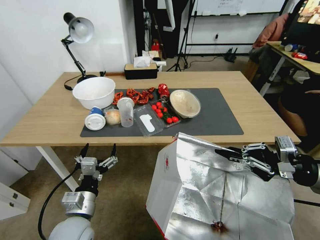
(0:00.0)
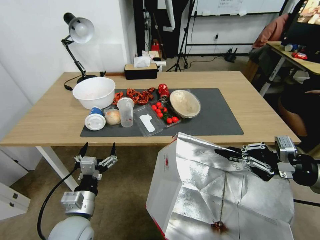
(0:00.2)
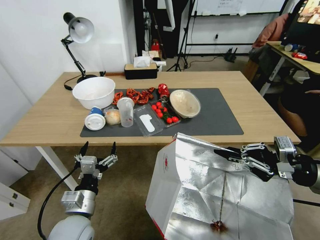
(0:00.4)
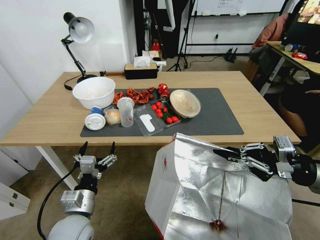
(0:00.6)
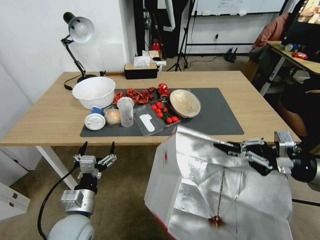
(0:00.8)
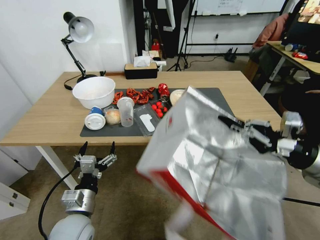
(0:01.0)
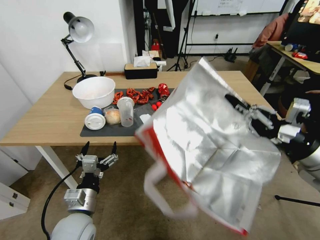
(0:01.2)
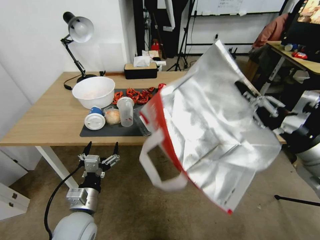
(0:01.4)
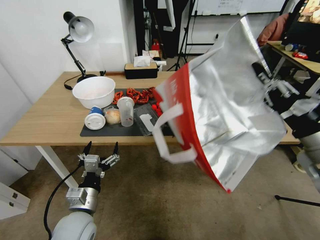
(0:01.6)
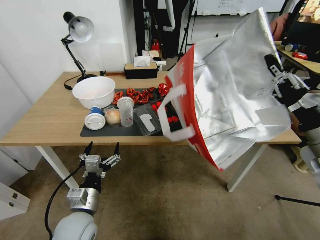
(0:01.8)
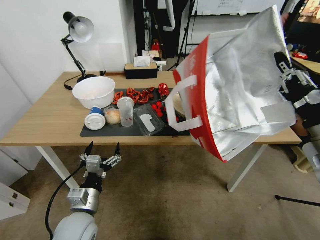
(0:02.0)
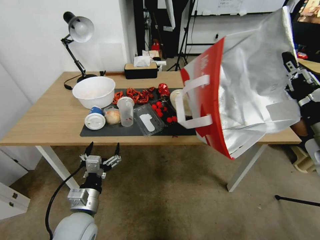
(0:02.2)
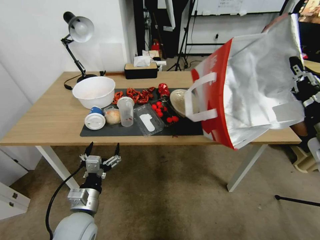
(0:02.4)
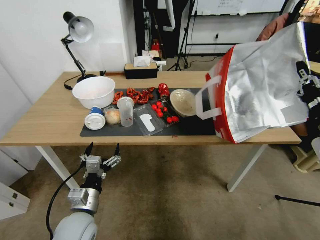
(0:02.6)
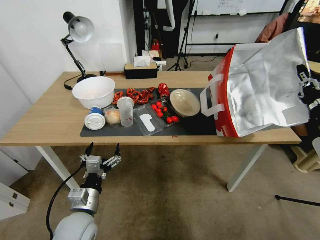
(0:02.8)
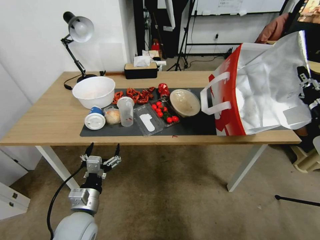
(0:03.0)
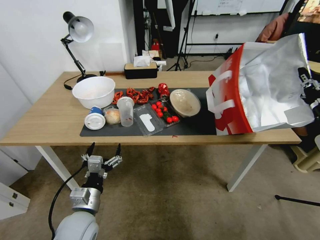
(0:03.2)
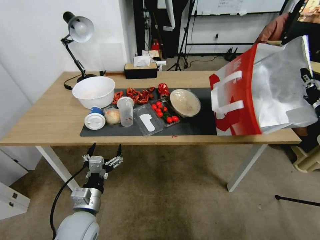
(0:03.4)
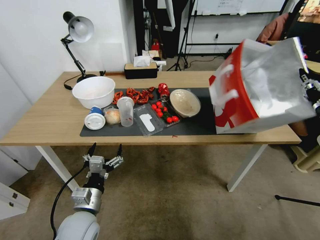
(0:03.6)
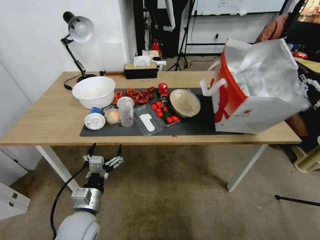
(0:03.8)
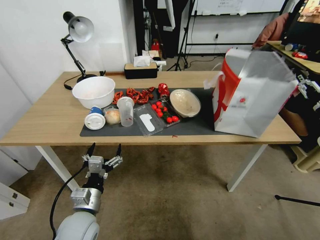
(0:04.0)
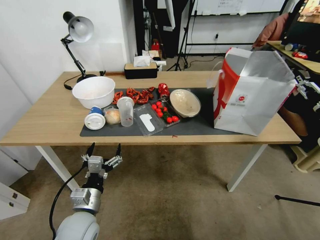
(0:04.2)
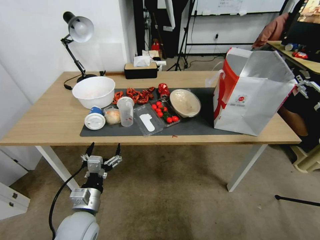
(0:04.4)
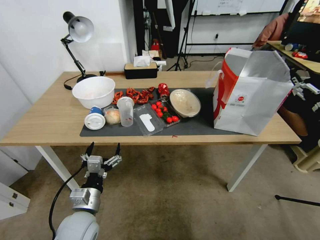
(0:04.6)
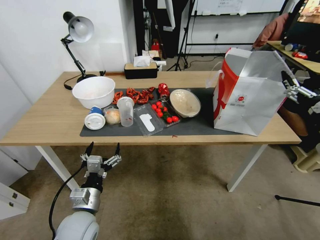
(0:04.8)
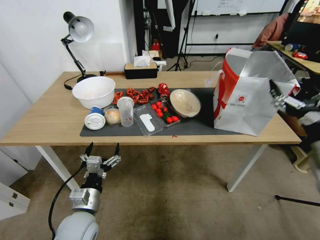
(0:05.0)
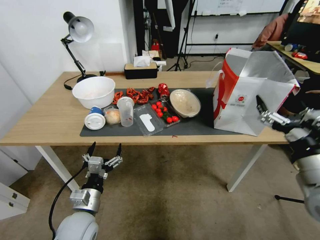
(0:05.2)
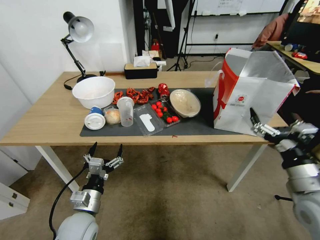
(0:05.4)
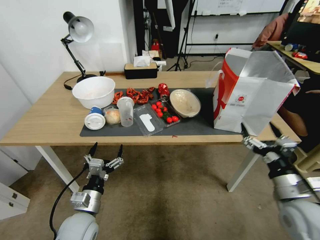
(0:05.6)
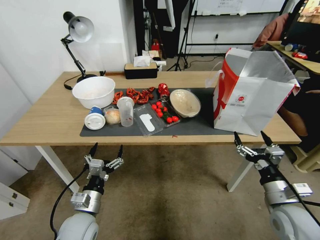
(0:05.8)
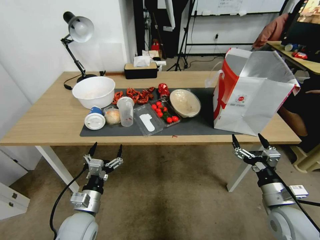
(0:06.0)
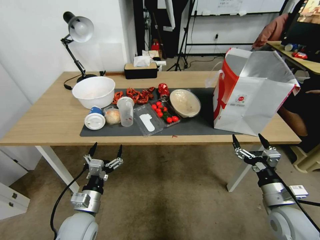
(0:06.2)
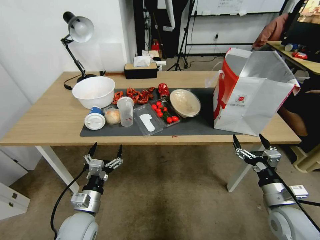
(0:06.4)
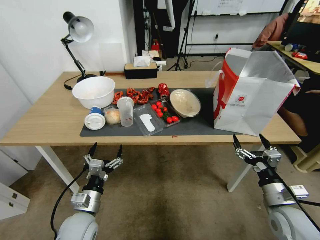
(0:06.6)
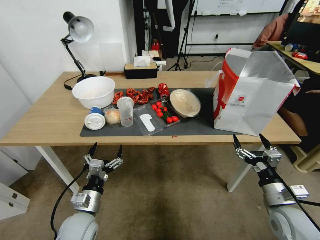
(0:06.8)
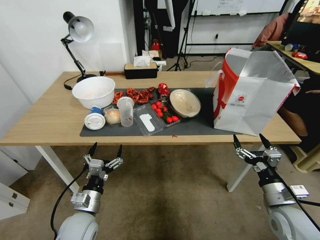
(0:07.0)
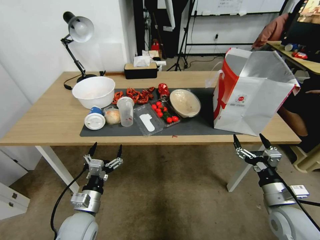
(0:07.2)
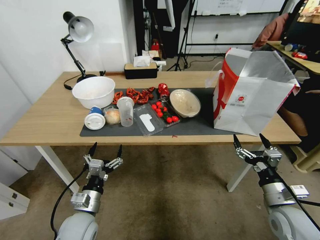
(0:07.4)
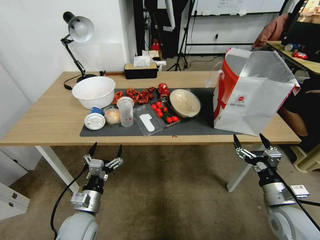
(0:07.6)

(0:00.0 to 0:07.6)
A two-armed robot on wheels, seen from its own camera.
Task of the whole recording: Pick up the food delivery bag from the floor and place it on the table.
0:00.0 - 0:01.6: The right gripper heads to the left, covering some 5 cm.
0:01.6 - 0:03.0: The right gripper is displaced to the right and forward by roughly 10 cm.
0:03.0 - 0:04.6: The right gripper opens.
0:04.6 - 0:06.0: The right gripper is displaced downward, to the left and backward by approximately 25 cm.
0:06.0 - 0:07.6: Both grippers stay put.
